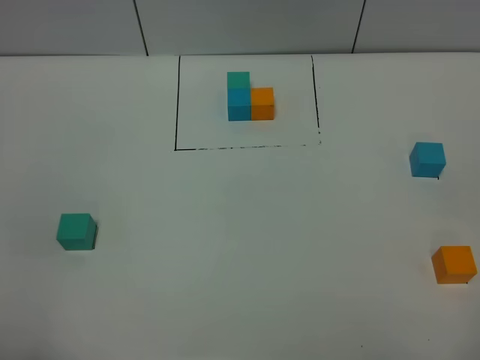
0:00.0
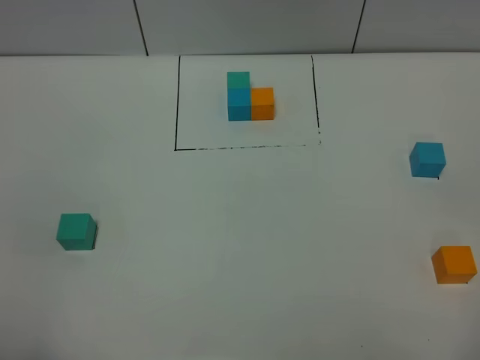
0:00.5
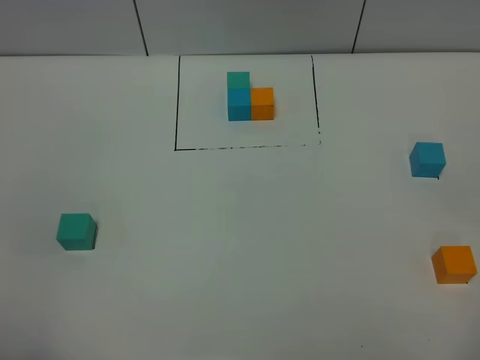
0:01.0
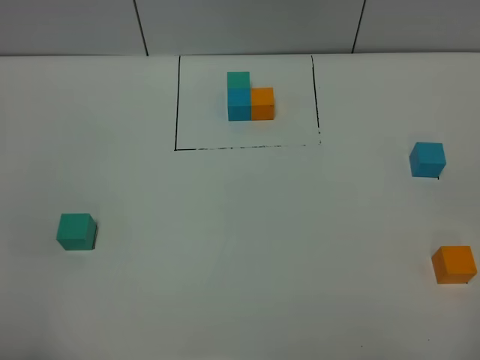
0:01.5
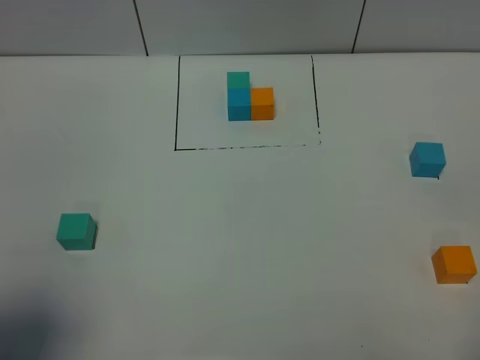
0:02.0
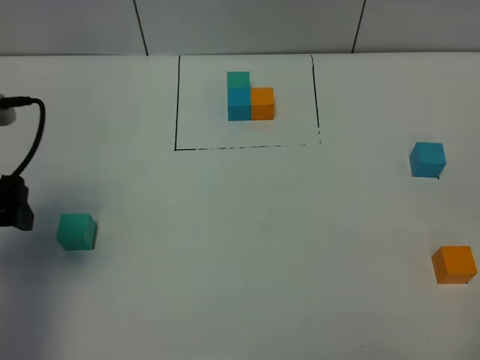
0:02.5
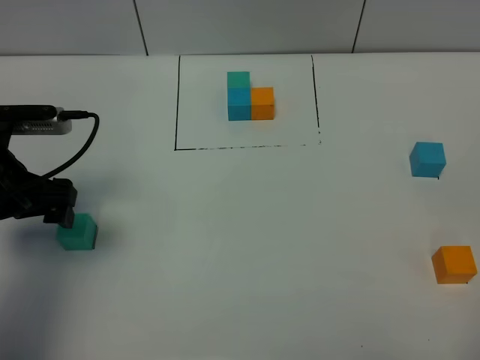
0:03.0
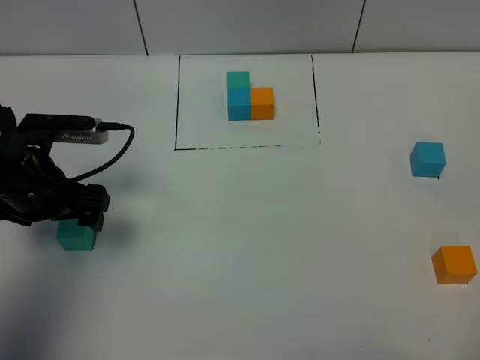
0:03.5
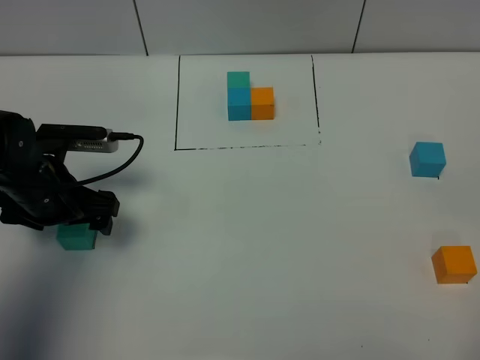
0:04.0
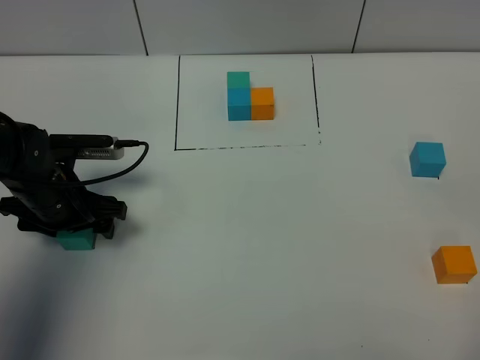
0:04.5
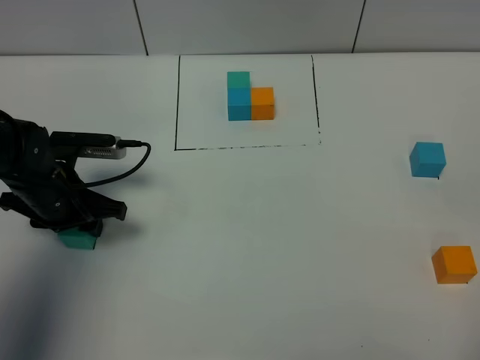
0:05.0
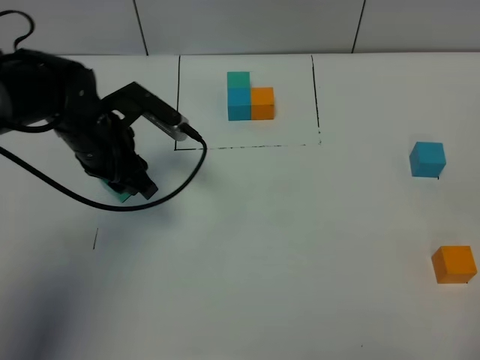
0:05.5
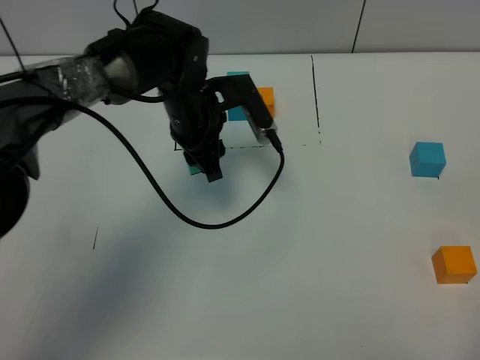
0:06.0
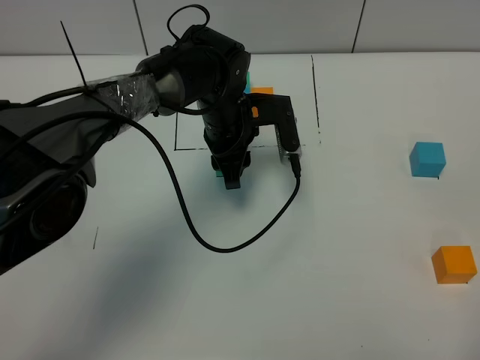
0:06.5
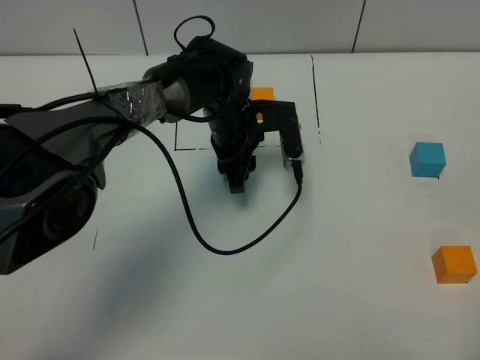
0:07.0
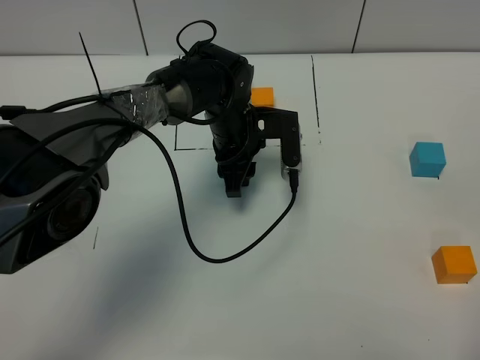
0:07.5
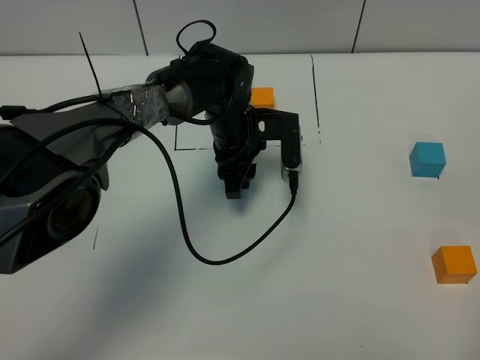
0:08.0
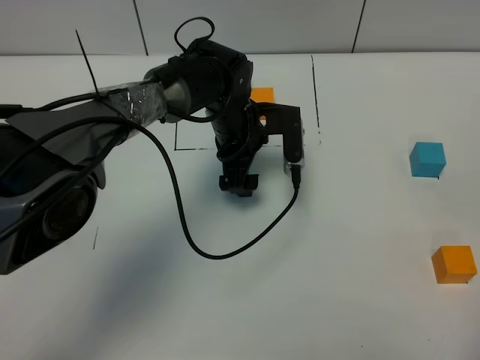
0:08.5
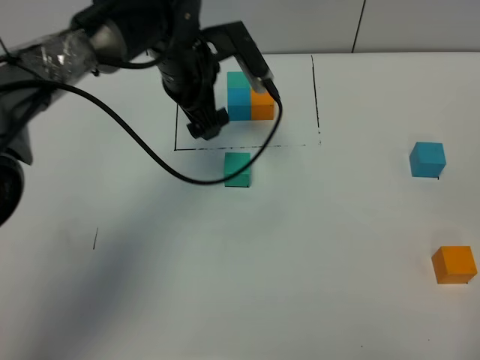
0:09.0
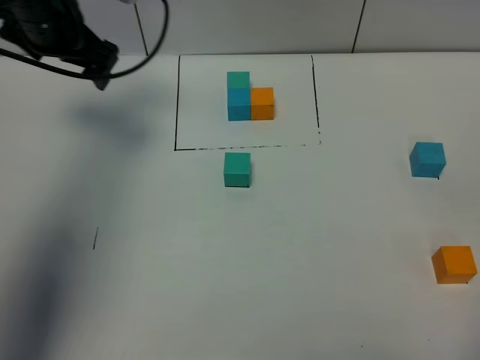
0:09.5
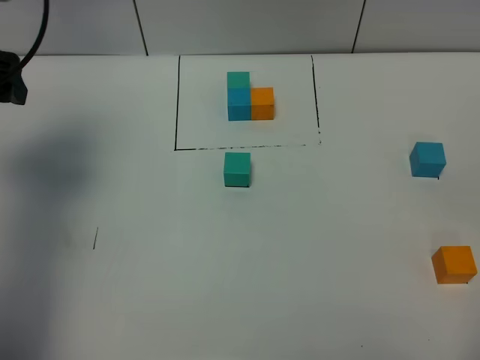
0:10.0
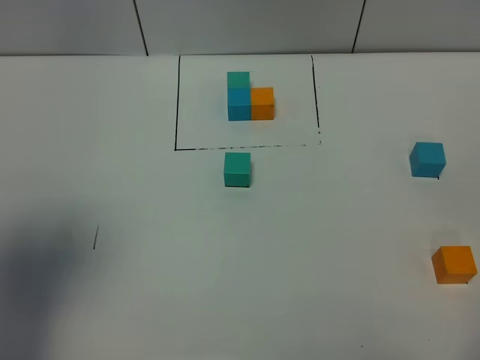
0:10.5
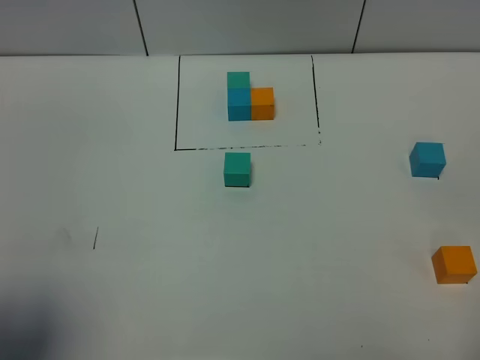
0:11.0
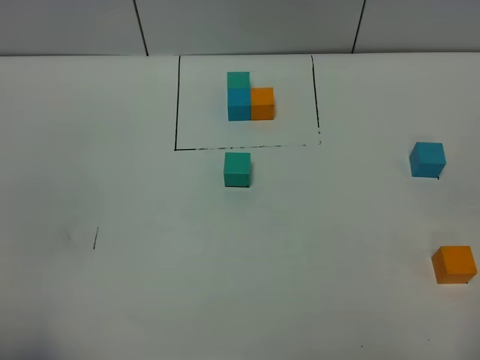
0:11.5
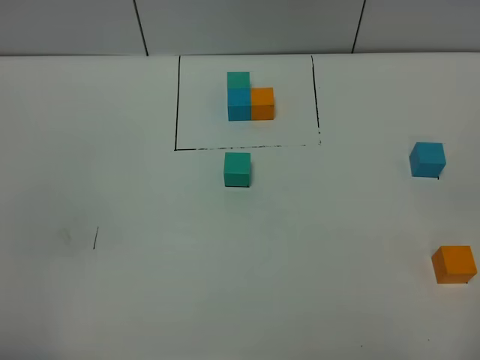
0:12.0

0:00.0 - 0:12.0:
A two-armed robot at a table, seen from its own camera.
Task of the whole recording: According to the building block template in front, assemble the scattered blocks together.
Step, 0:00.0 - 0:08.0: Put the green build block in the center of the table.
0:00.0 - 0:02.0: The left gripper is displaced forward by some 10 cm.
0:02.0 - 0:04.0: The left gripper goes roughly 25 cm forward and downward.
0:04.0 - 0:06.0: The left gripper travels to the right and forward by approximately 20 cm, and closes its fingers.
0:06.0 - 0:08.0: The left gripper shifts some 5 cm downward.
0:08.0 - 0:10.0: The left gripper is displaced to the left and upward by some 35 cm, and opens its fingers.
0:10.0 - 0:12.0: The left gripper is displaced backward by about 35 cm.

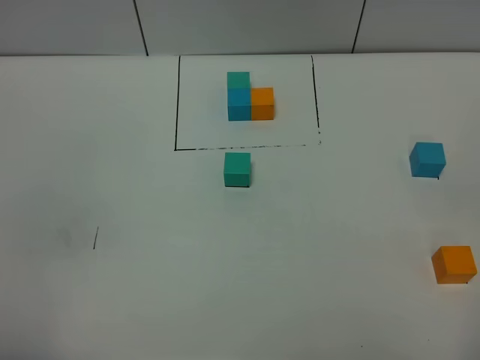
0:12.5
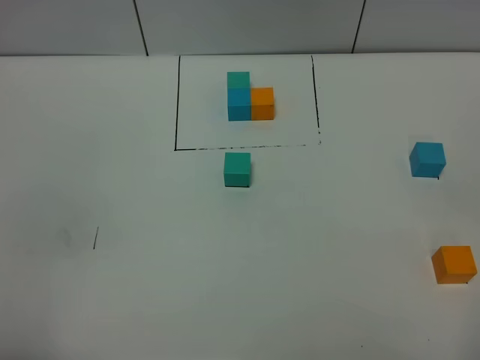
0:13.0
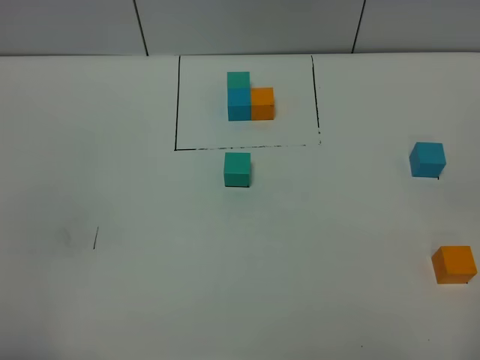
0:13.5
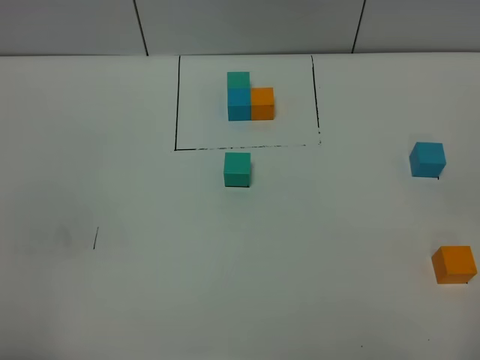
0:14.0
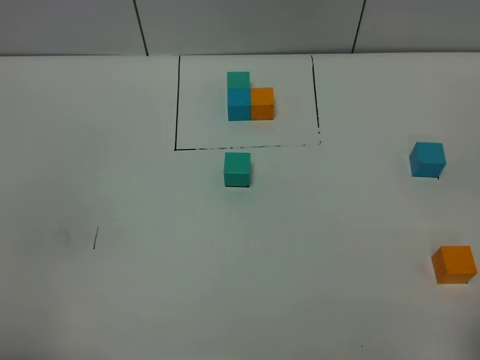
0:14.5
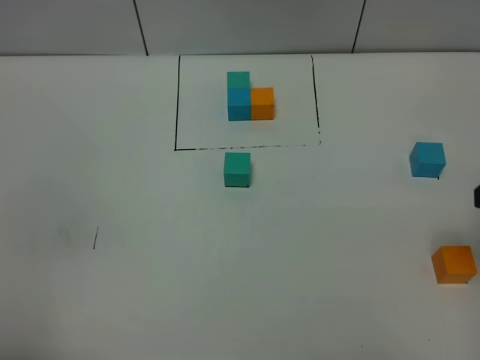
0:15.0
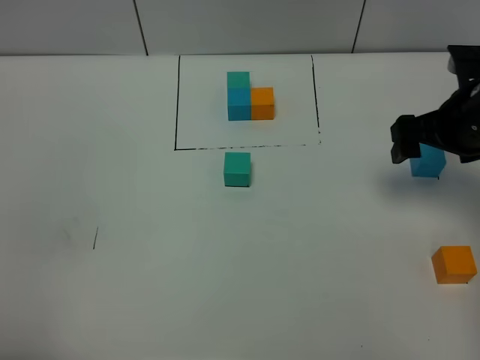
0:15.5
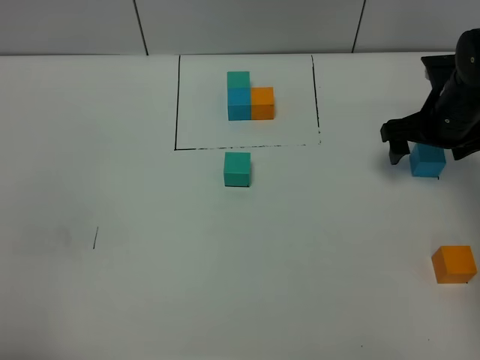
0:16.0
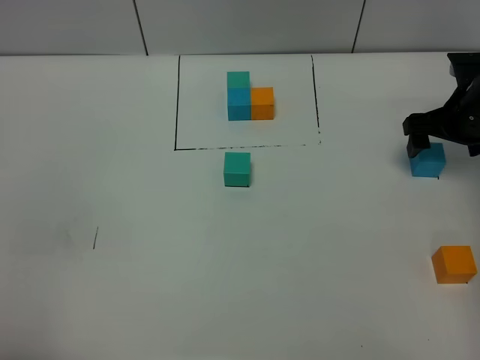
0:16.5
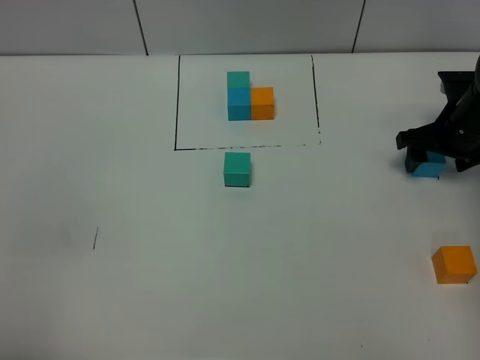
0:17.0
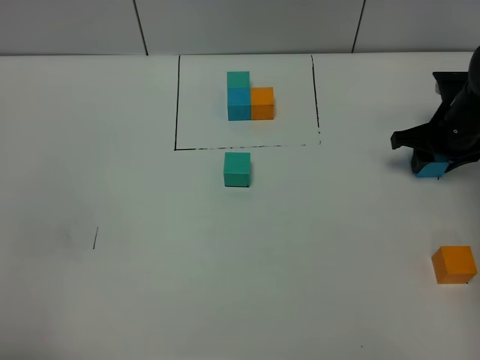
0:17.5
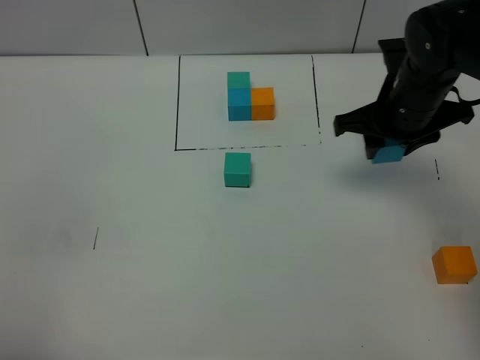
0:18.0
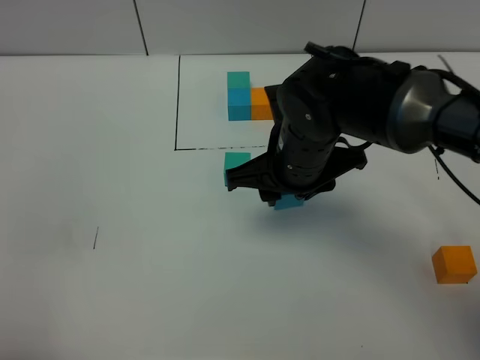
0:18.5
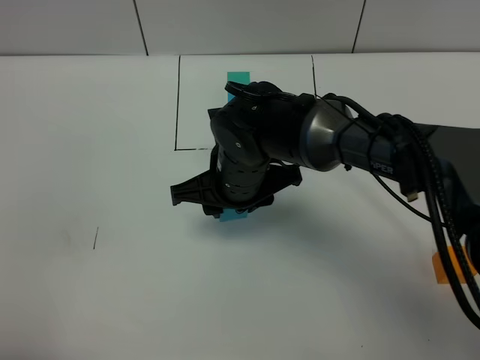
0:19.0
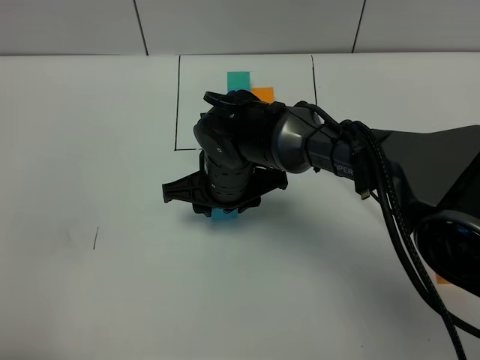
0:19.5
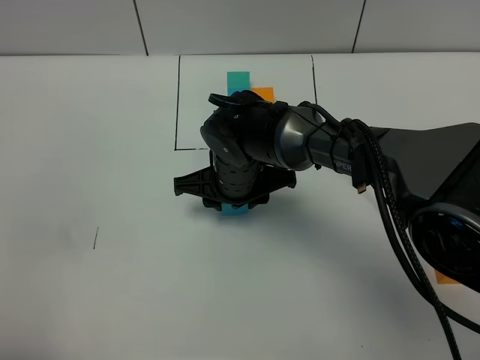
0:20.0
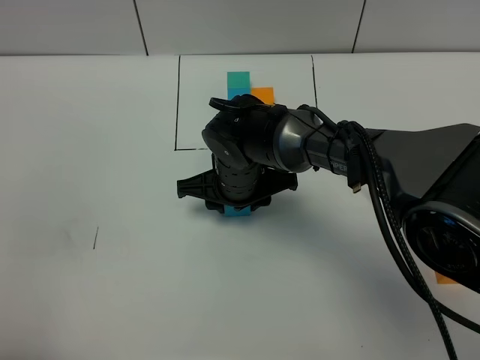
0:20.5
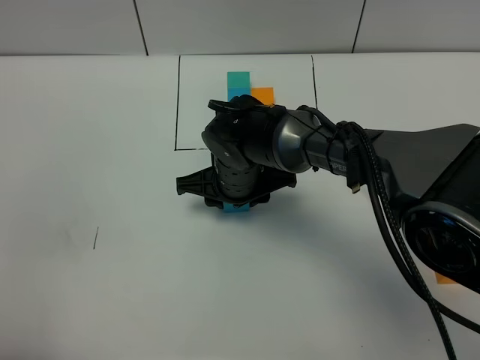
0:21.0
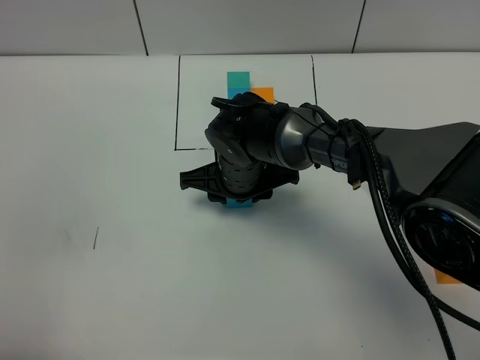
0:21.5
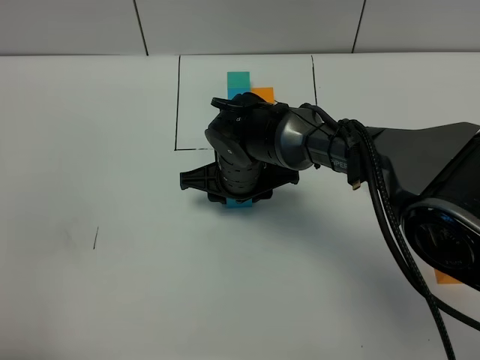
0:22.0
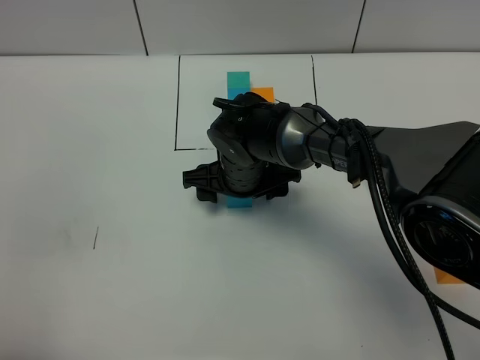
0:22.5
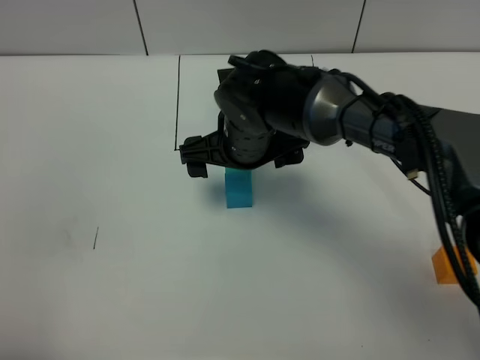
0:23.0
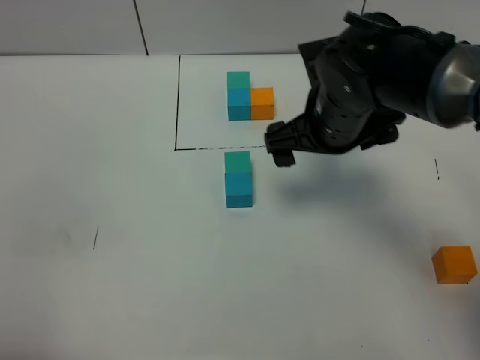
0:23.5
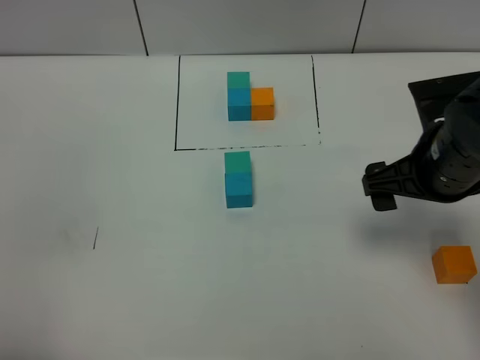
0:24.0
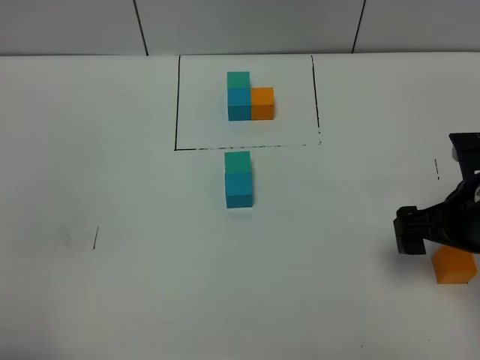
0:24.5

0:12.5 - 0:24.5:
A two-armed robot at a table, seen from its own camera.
Task of the whole recording: According to the building block template in front, assemble the scattered blocks together.
Step, 0:12.5 - 0:22.5: Put the blue build block on the behind of the green build block.
0:14.5 - 0:16.5: The right gripper is displaced forward and downward by approximately 35 cm.
0:16.5 - 0:18.5: The right gripper heads to the left and backward, covering approximately 25 cm, and closes.
0:18.5 - 0:20.5: The right gripper travels downward and to the left by roughly 10 cm.
0:20.5 - 0:22.5: The right gripper opens its fingers.
0:22.5 - 0:24.5: The right gripper travels to the right and backward by some 30 cm.

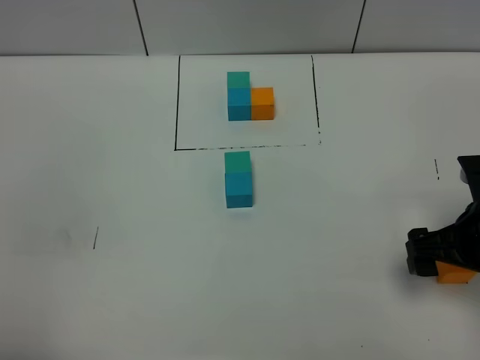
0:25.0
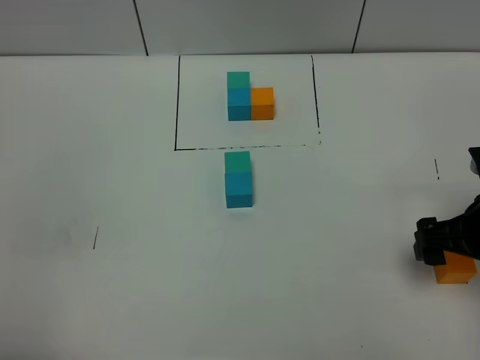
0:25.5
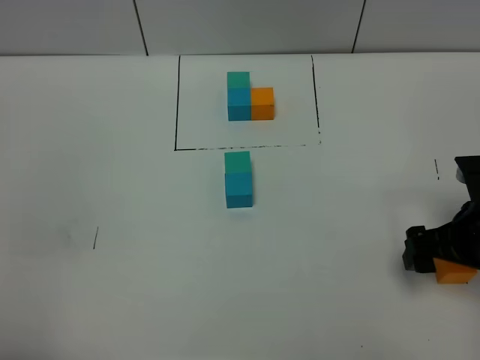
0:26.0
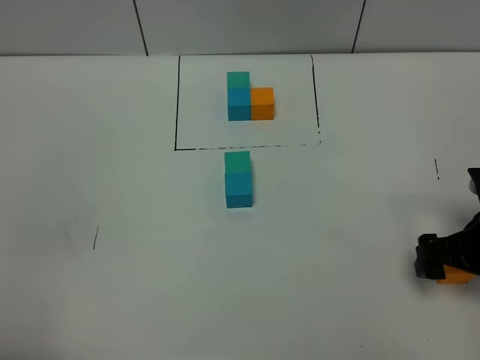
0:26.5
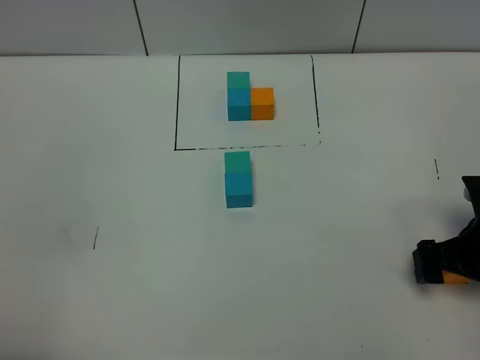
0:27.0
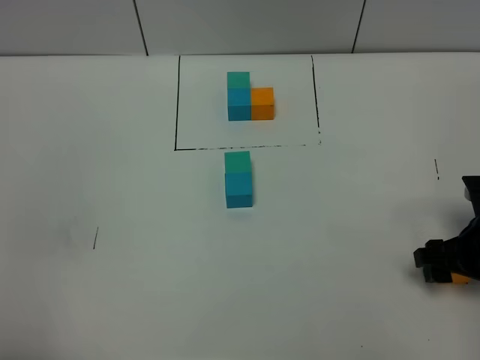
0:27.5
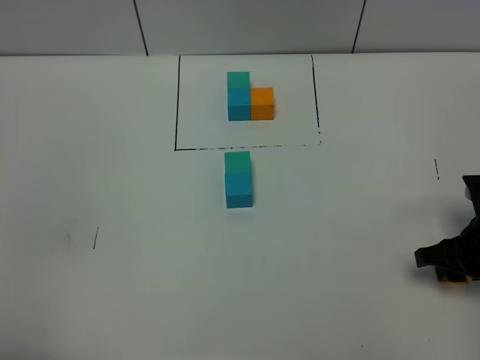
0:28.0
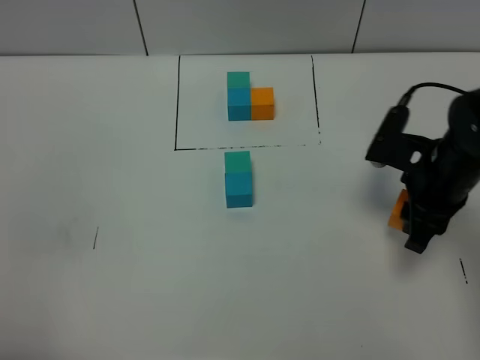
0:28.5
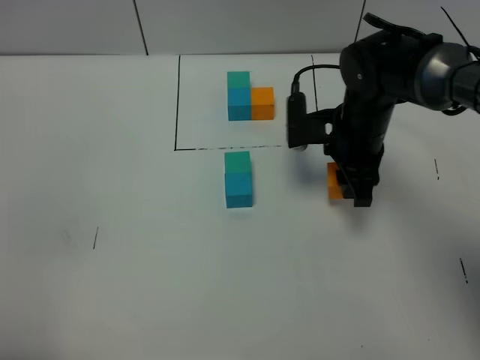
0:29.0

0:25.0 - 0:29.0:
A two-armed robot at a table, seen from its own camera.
Task of the whole recording: According to the building block template in front, assemble the scattered blocks together.
0:25.0 - 0:27.0: The right gripper goes some 5 cm downward.
0:27.0 - 0:29.0: The right gripper shifts some 20 cm to the left and forward, and closes its fingers.
